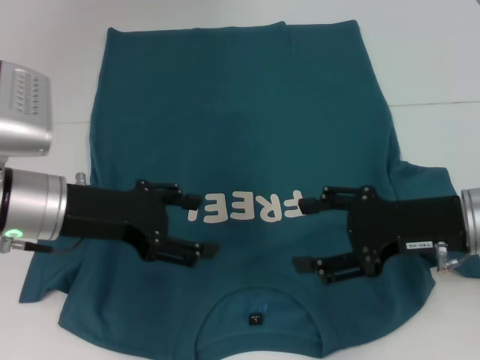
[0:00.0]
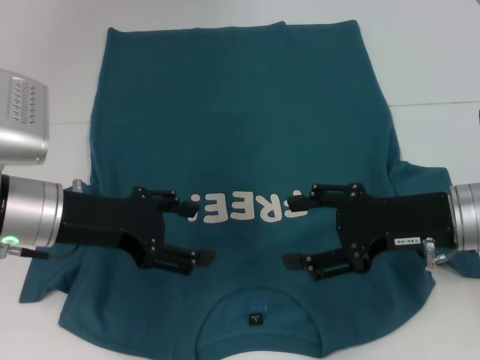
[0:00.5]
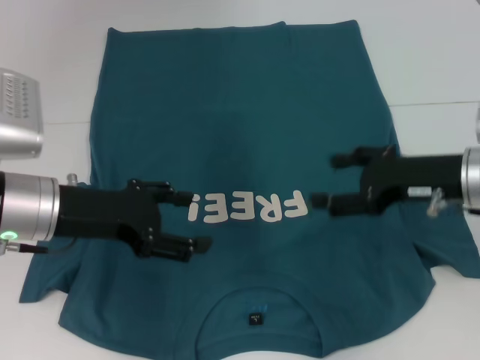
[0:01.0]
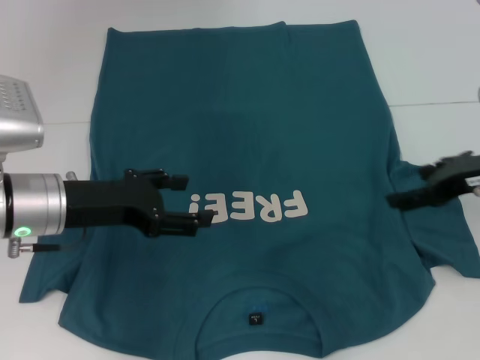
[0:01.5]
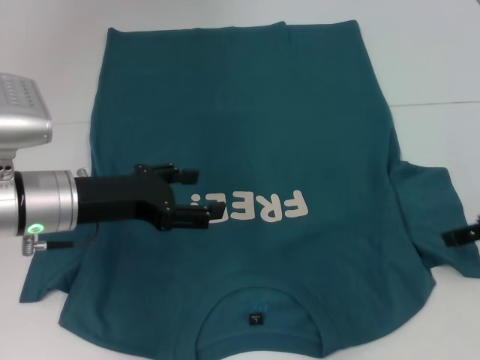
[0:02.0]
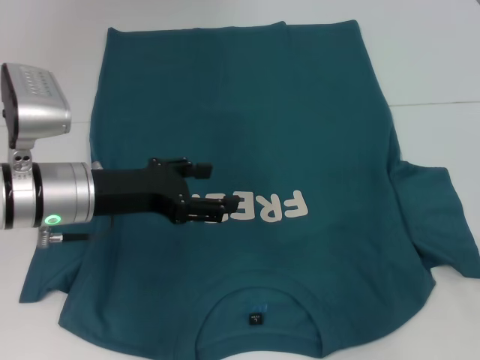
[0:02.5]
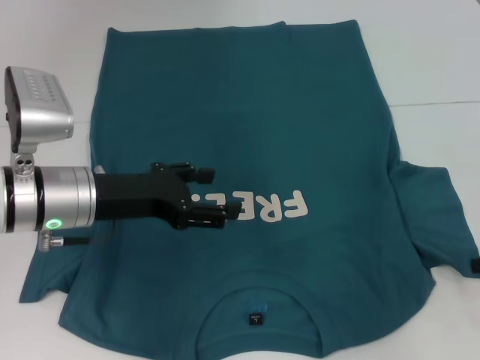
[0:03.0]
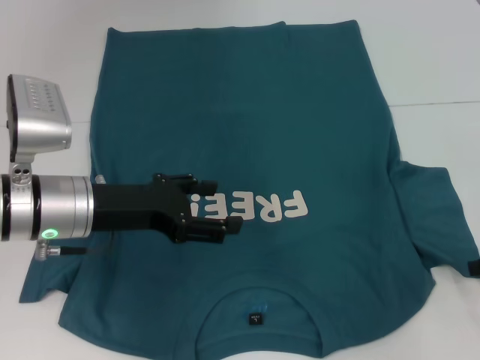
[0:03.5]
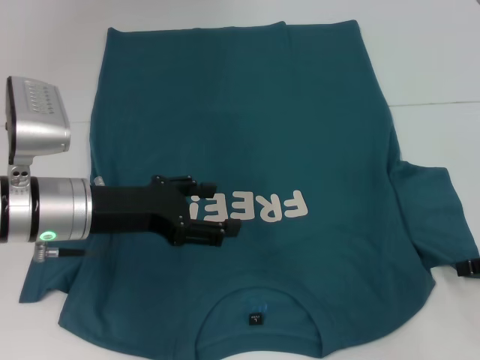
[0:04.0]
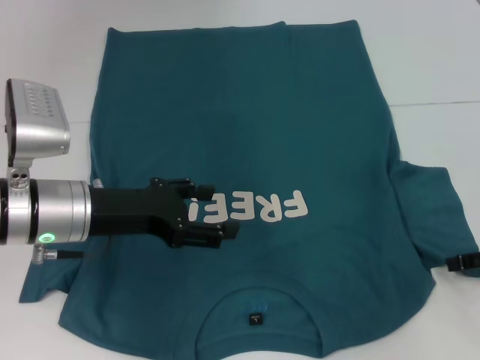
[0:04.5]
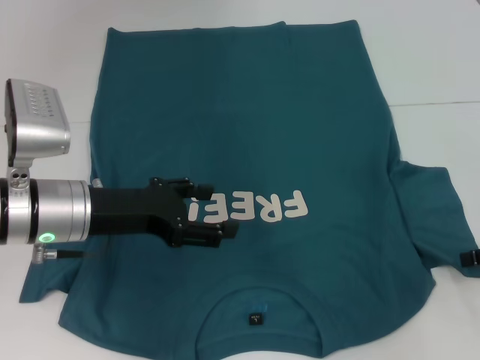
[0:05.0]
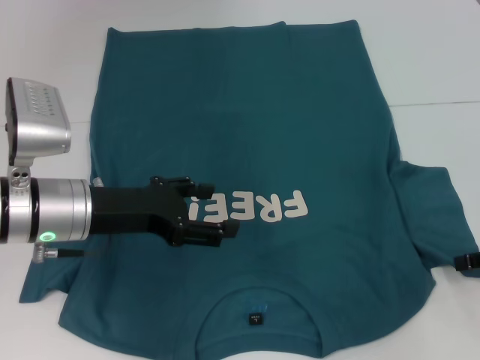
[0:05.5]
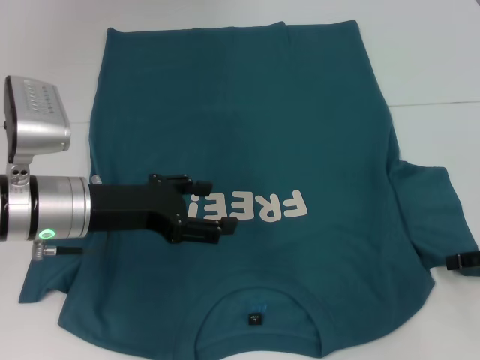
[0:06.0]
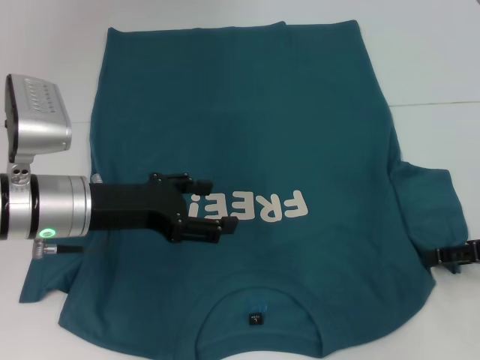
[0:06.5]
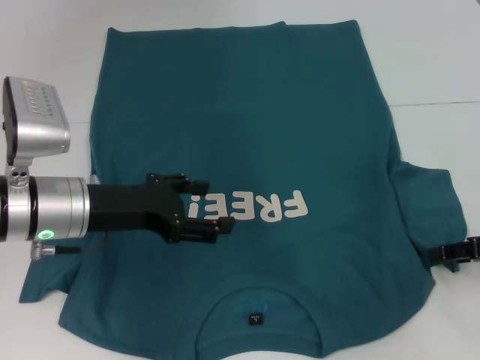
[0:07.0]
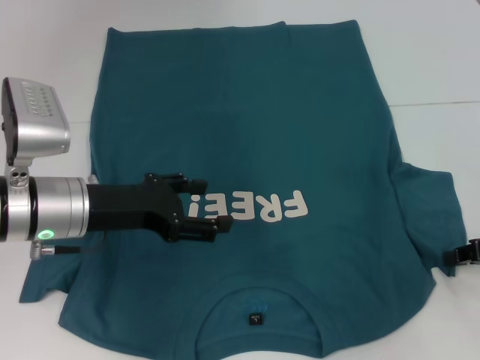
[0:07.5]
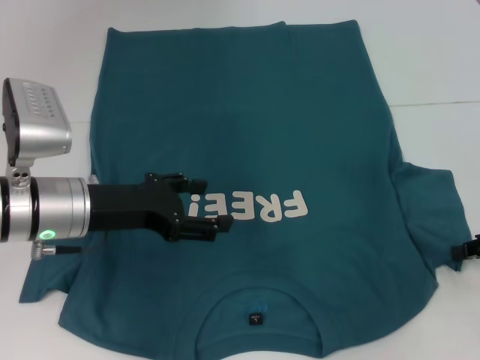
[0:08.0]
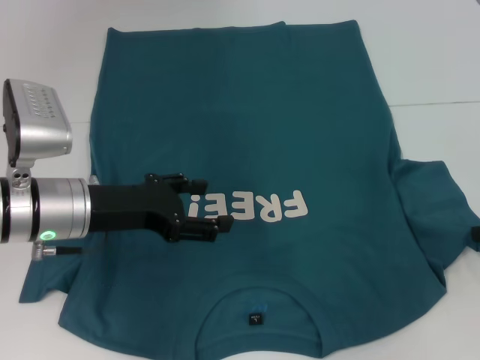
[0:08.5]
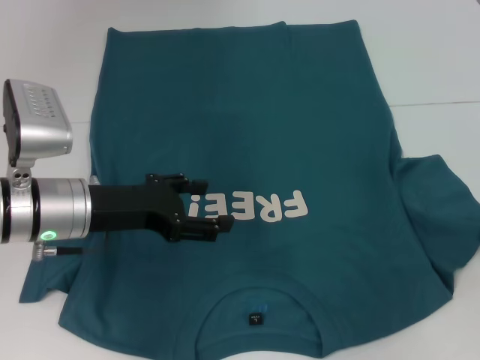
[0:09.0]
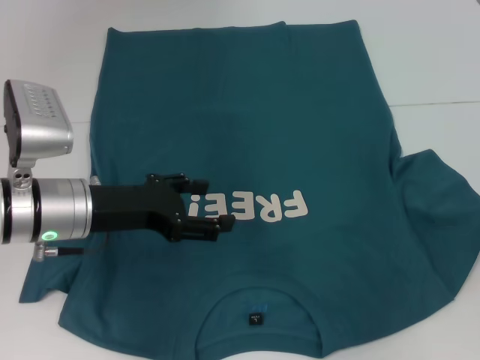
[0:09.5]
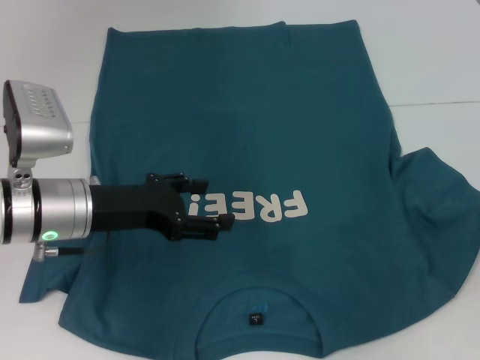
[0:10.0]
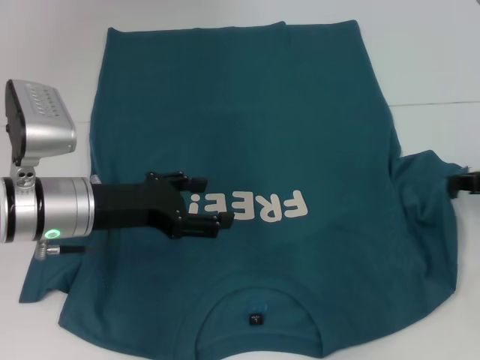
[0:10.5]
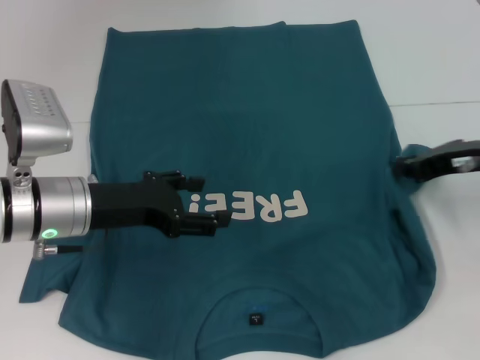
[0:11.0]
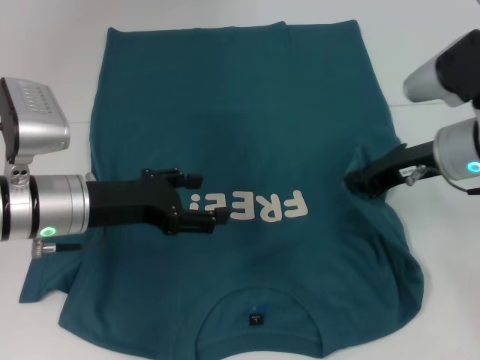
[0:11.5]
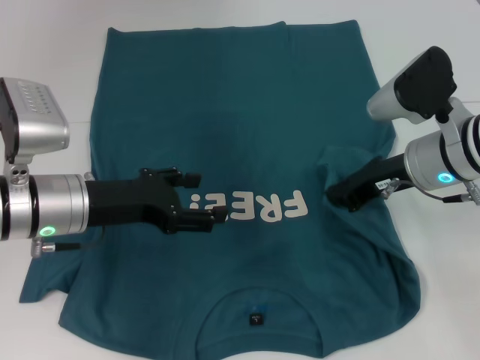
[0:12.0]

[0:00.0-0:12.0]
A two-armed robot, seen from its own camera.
0:00.0 to 0:02.0: The right gripper goes some 10 cm to the right.
0:02.0 to 0:04.0: The right gripper ends up about 5 cm from where it was.
0:04.0 to 0:06.0: The two grippers keep their place.
0:06.0 to 0:08.0: The right gripper closes up.
0:08.0 to 0:10.0: There are only small adjustments of the grippers.
0:10.0 to 0:12.0: The right gripper is displaced to the left by about 20 cm.

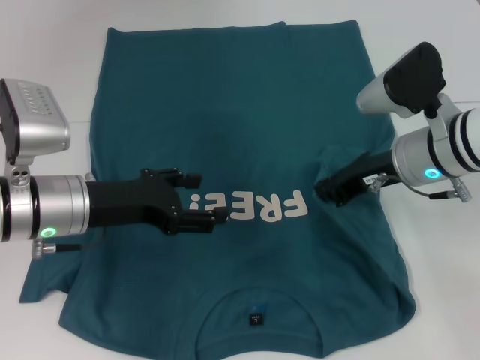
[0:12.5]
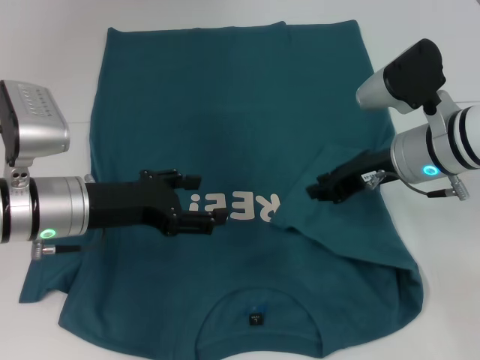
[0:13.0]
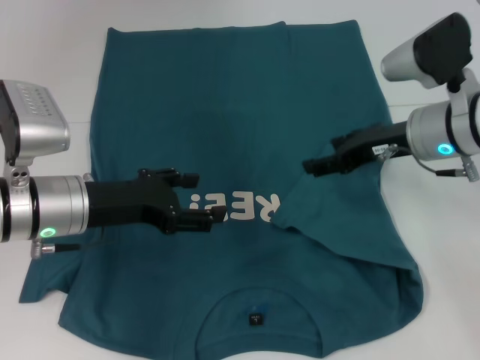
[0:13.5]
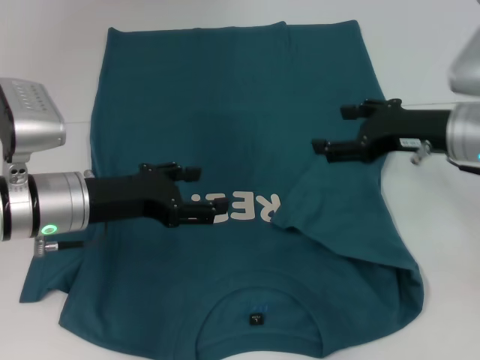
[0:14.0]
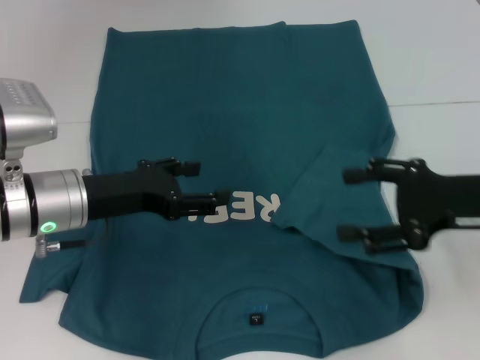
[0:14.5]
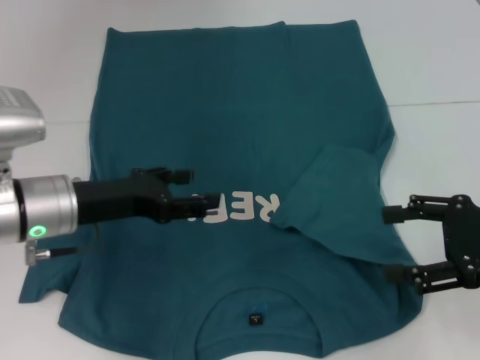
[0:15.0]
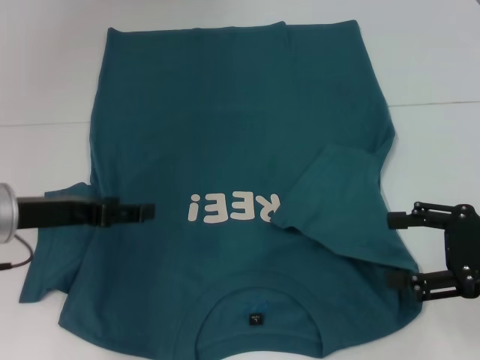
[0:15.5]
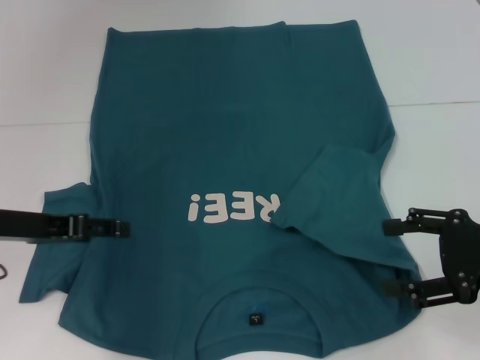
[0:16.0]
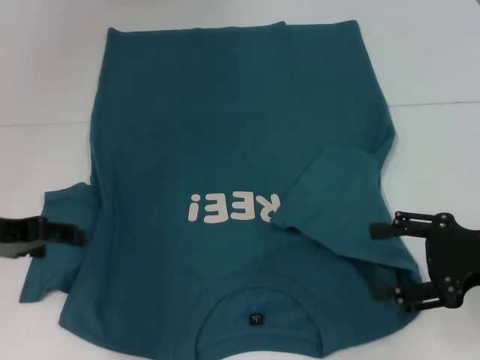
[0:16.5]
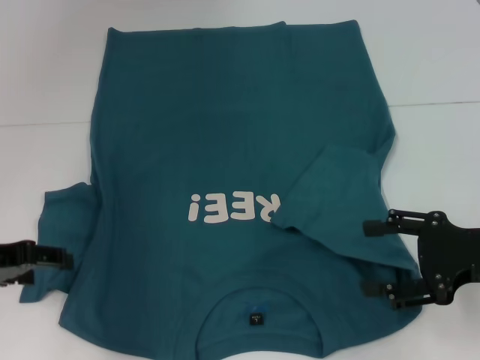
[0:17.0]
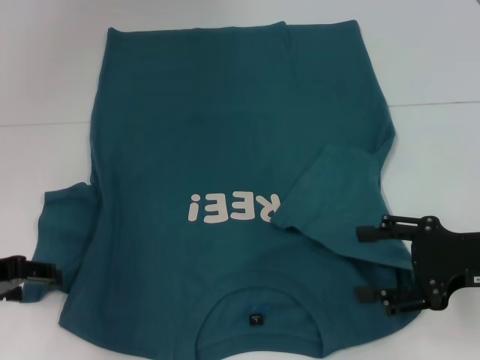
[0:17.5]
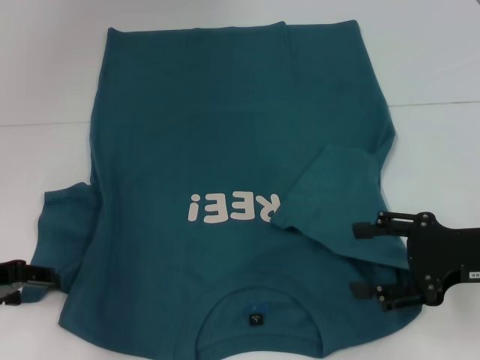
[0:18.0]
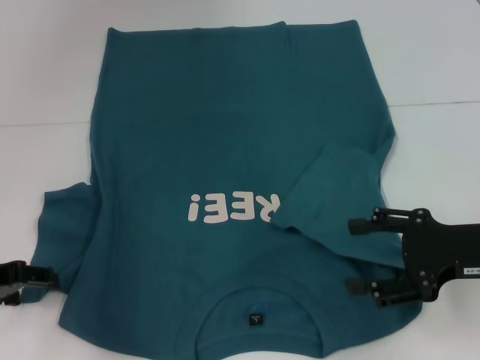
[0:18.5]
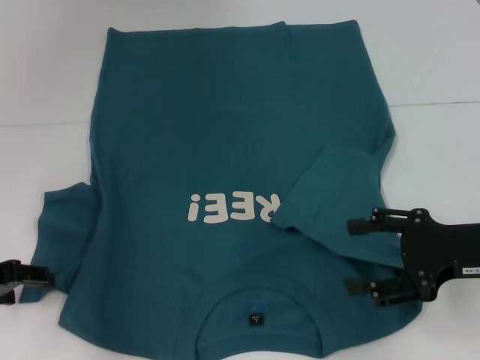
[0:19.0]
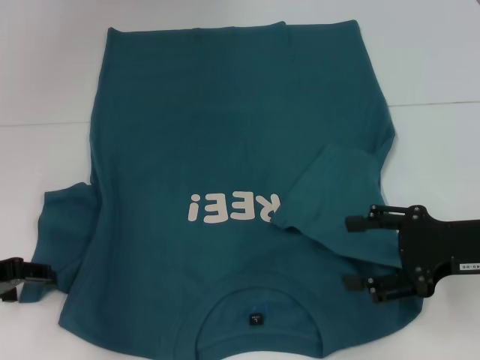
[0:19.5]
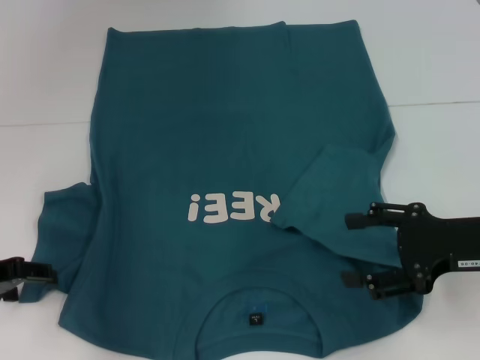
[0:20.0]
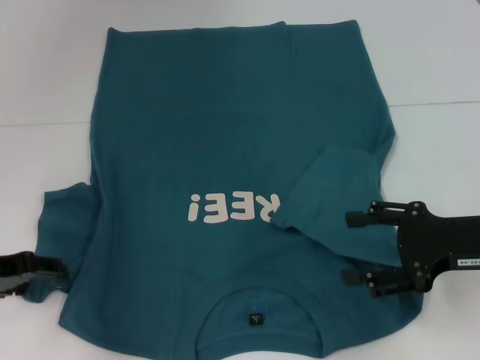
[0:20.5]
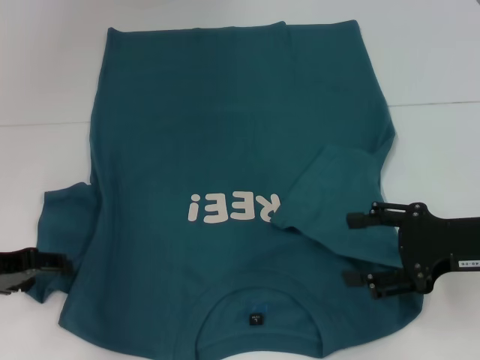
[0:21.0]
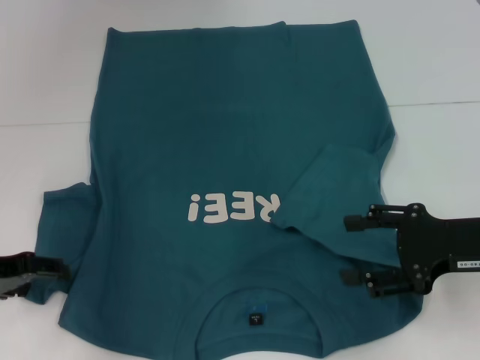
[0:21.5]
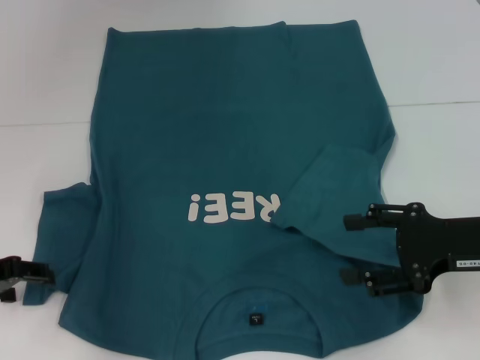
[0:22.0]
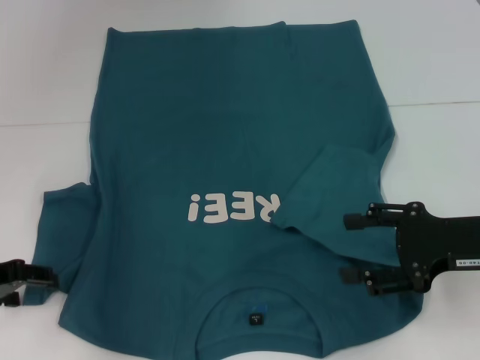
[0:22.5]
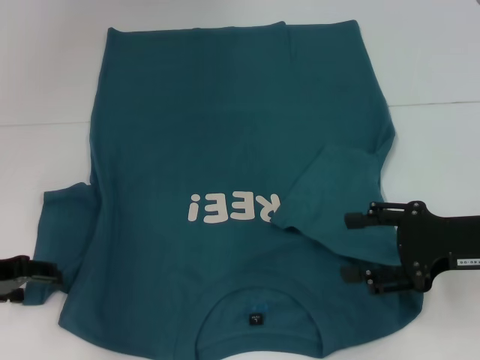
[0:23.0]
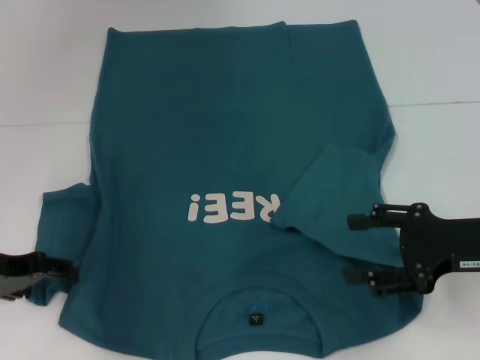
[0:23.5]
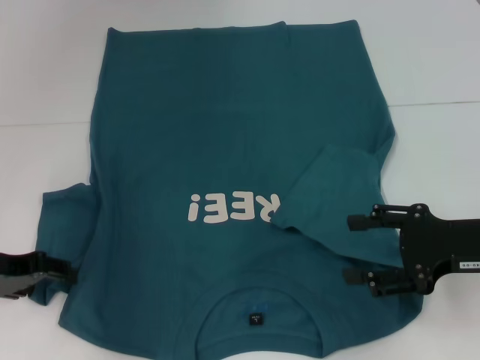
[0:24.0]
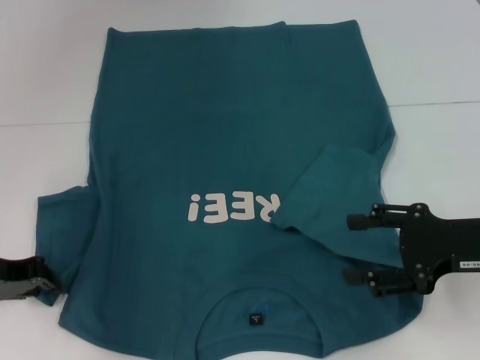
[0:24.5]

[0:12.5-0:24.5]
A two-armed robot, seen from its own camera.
0:12.5 to 0:14.5: The right gripper moves backward and to the right, approximately 10 cm, and opens up.
0:14.5 to 0:16.5: The left gripper is displaced to the left by about 10 cm.
0:16.5 to 0:18.5: The left gripper changes place by about 5 cm.
0:18.5 to 0:22.5: Neither gripper changes place.
0:22.5 to 0:24.5: The left gripper closes.

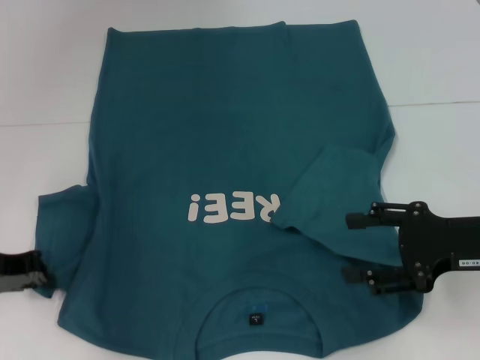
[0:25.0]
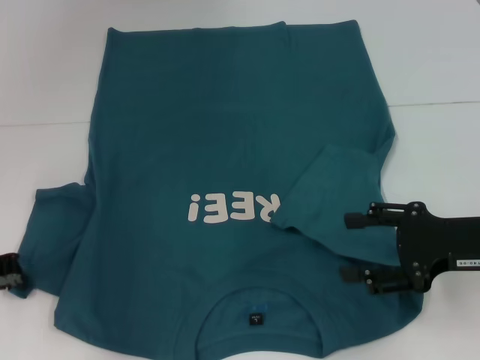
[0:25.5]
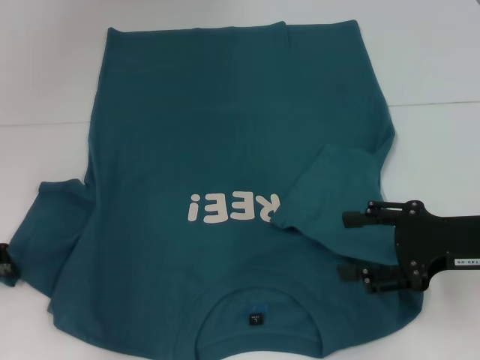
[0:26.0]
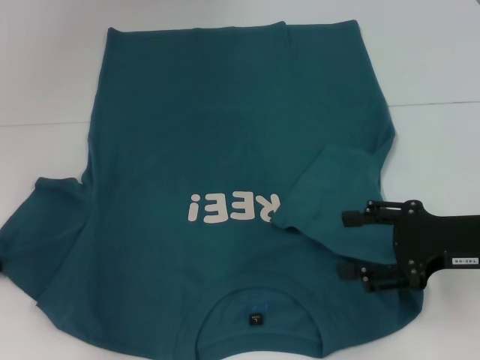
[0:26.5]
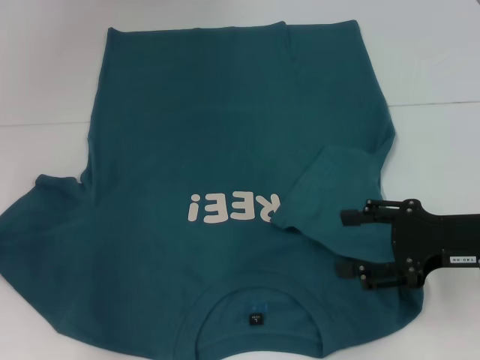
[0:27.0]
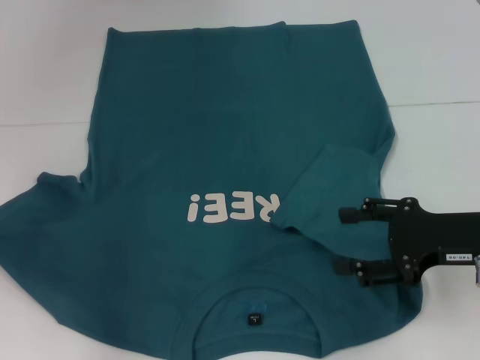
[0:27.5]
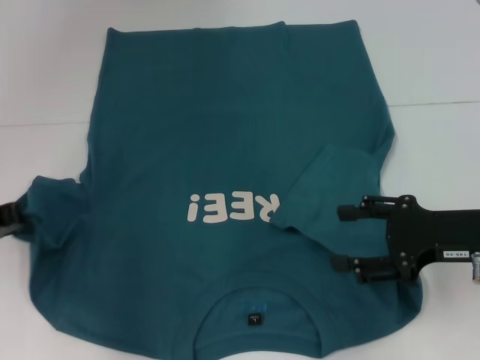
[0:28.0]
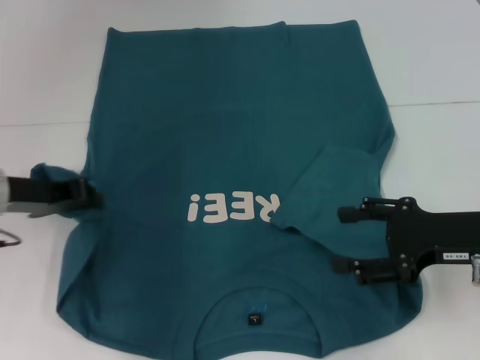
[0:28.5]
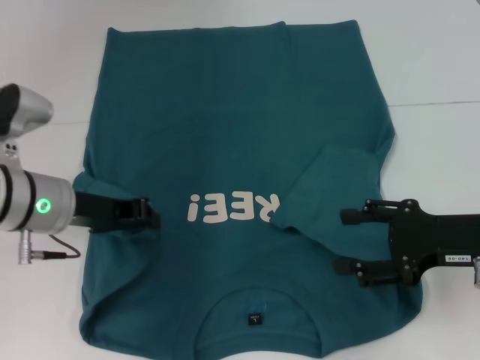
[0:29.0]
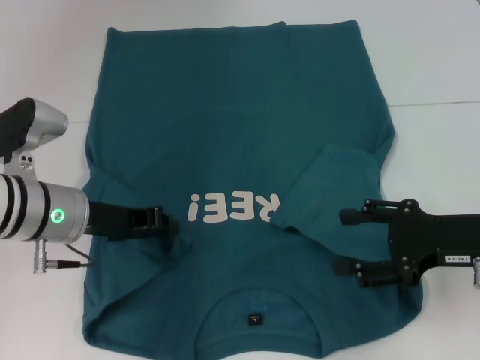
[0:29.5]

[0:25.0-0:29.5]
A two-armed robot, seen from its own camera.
0:25.0 to 0:27.0: The grippers move only a little.
0:27.0 to 0:29.5: The left gripper heads to the right, covering about 15 cm.
